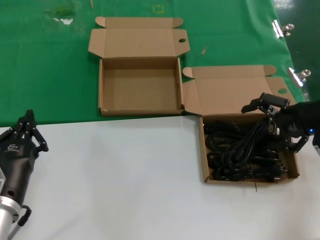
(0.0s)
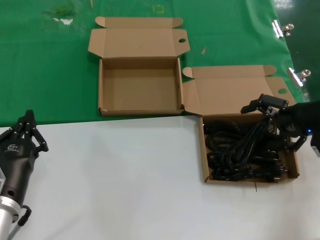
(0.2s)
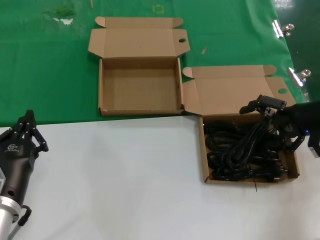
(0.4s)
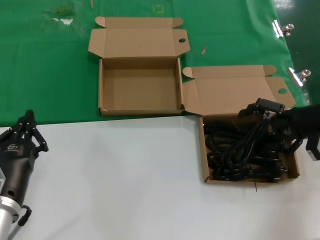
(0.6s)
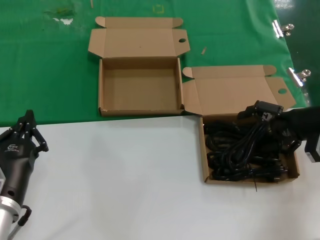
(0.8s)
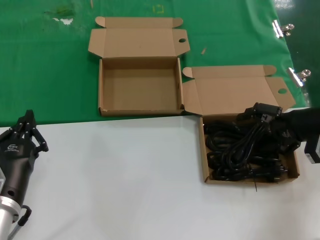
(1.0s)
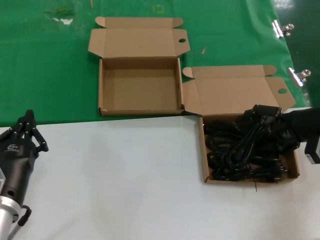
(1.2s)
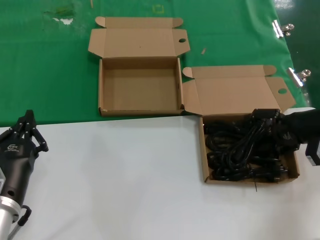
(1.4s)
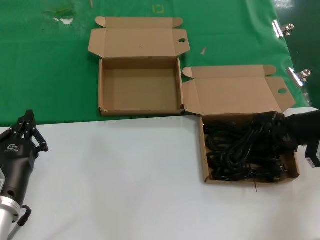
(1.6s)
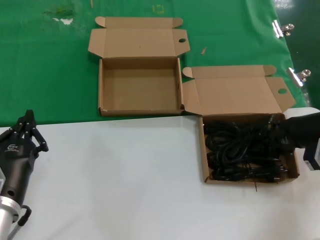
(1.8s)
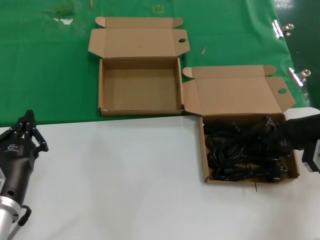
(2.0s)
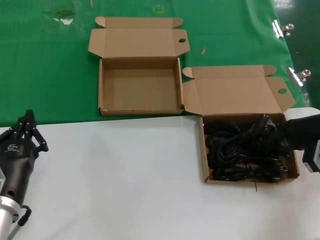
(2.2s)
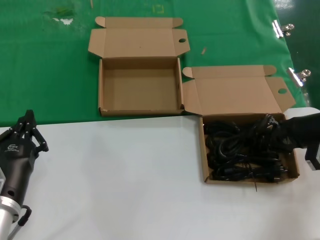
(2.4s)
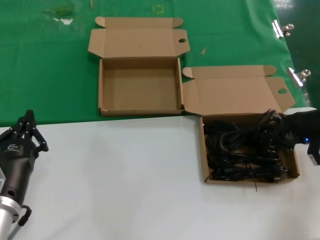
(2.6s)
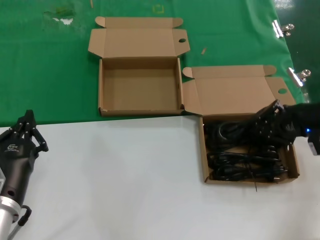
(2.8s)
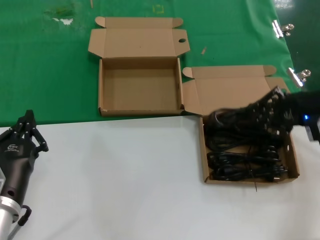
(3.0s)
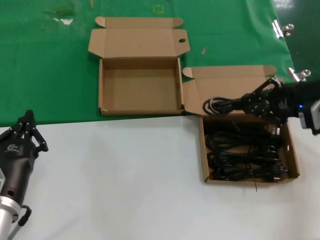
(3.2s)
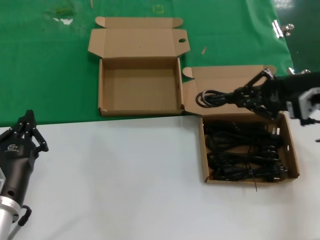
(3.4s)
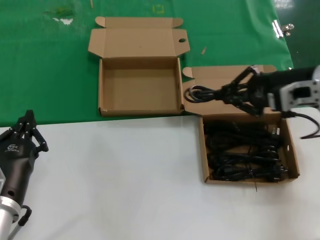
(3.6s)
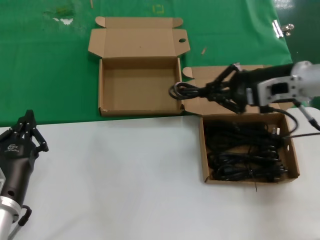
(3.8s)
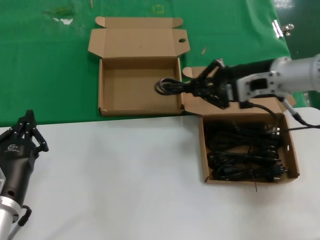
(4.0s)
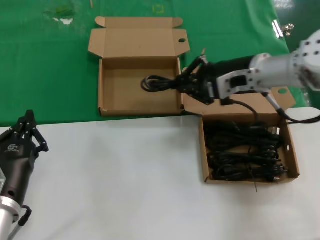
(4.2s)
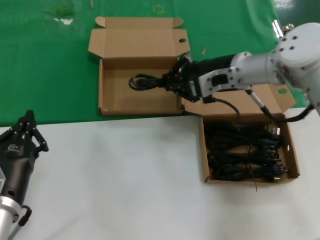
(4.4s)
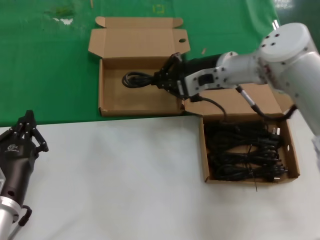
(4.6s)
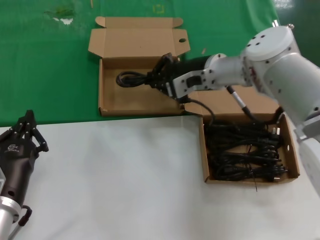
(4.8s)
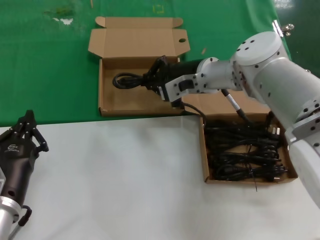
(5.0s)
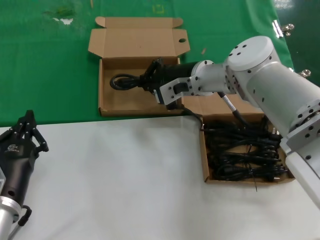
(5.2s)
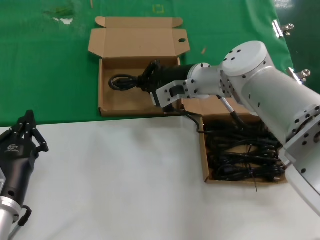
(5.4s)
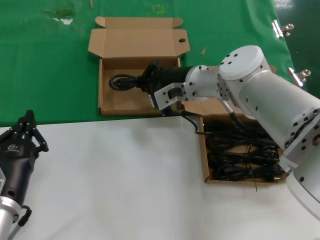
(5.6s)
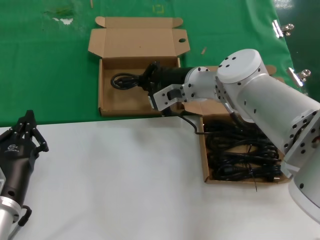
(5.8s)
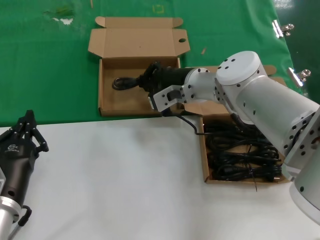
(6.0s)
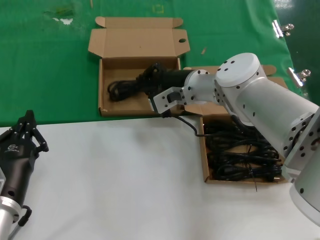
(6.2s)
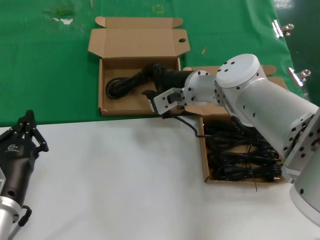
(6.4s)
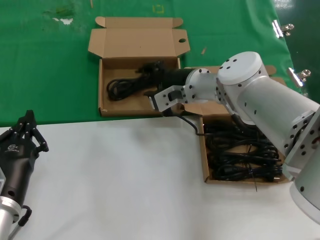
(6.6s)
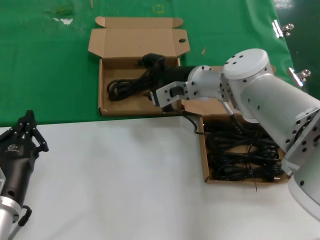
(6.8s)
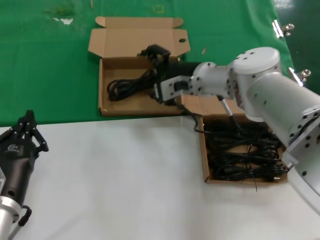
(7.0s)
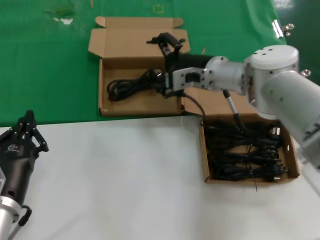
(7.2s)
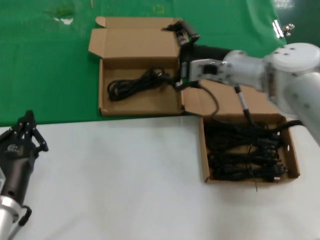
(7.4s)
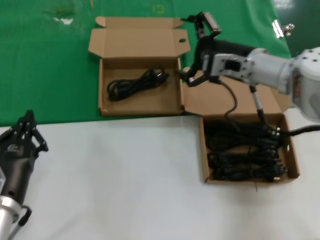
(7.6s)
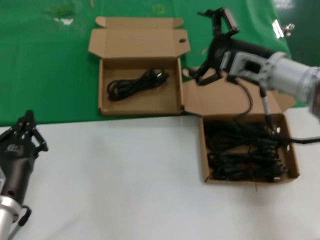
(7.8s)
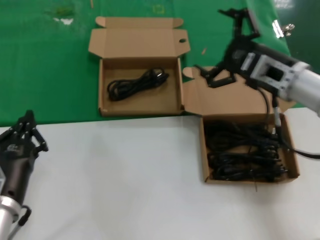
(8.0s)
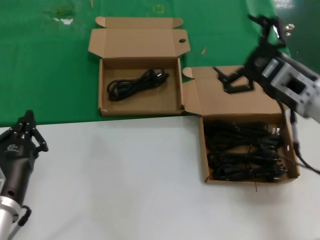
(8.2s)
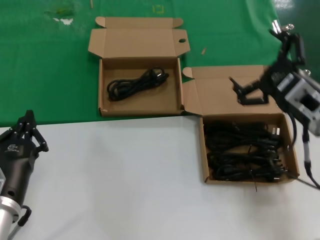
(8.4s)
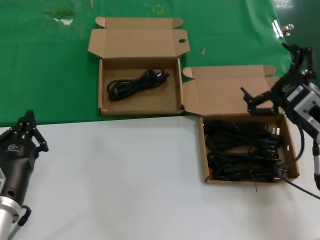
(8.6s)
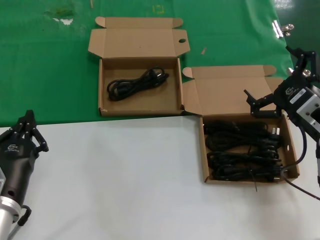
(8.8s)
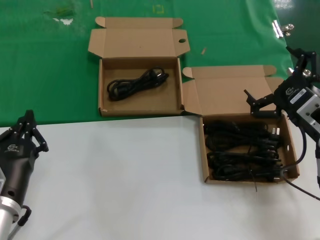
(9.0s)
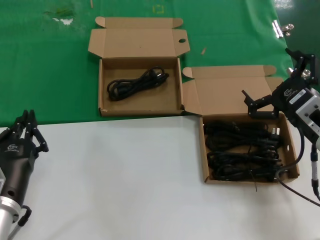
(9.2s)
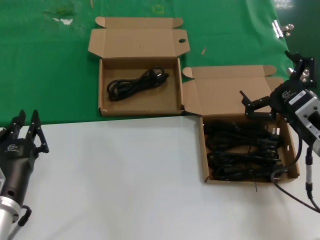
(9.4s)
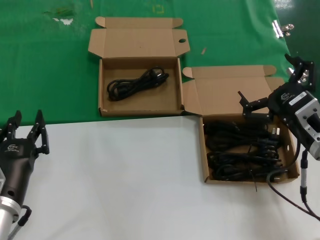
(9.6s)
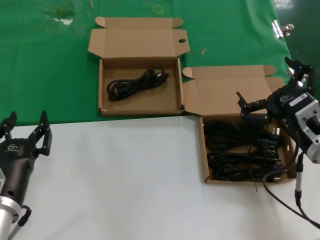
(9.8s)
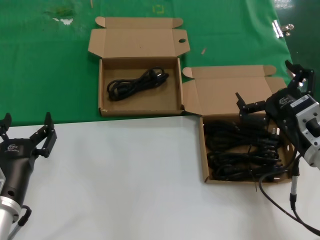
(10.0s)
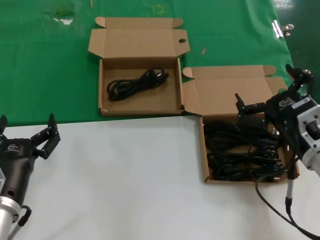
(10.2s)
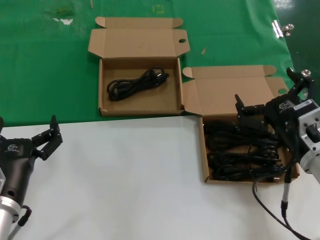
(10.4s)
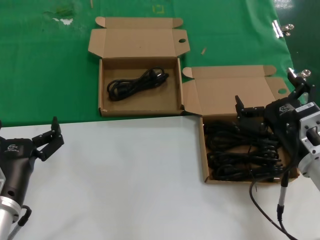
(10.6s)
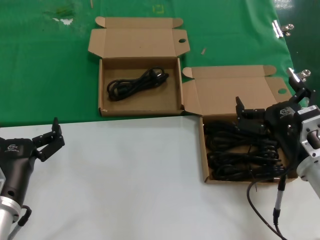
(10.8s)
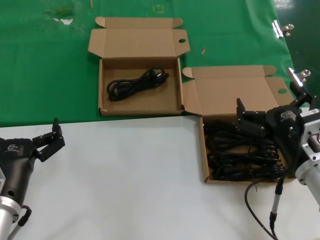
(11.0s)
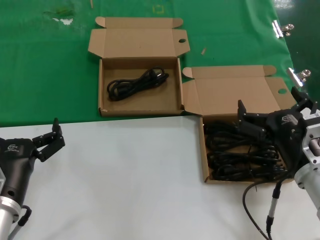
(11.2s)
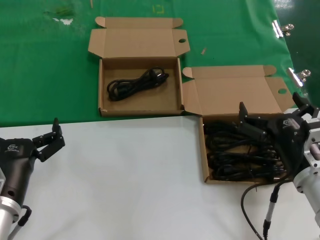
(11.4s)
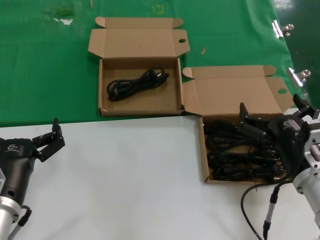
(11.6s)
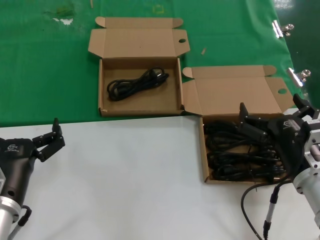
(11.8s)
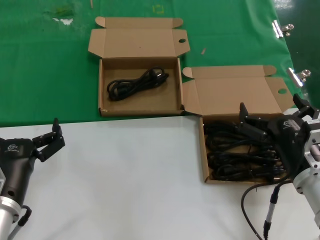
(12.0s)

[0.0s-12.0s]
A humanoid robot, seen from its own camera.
Task of the whole recording: take the parts from the box containing them and put them into an empty box.
Step, 0.0s to 2.2s: Grasp the data cable.
Step, 2.4s to 6.2s: Place the data cable in the another box.
0.0s to 1.6s: The hands move only a little.
1.6s to 3.0s: The right hand shifts by roughly 5 cm.
3.0s to 4.4s: The right hand goes approximately 20 cm to the left and forward.
4.4s to 6.0s: The right hand goes roughly 10 cm to the left and downward.
6.0s to 7.6s: The right hand moves to the right, roughly 10 cm.
7.6s to 9.0s: The right hand is displaced backward and to the right by approximately 20 cm.
9.0s to 10.4s: The right hand moves some 5 cm.

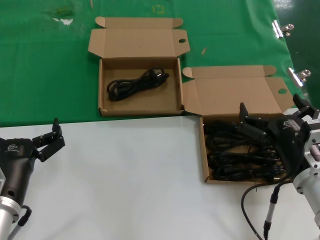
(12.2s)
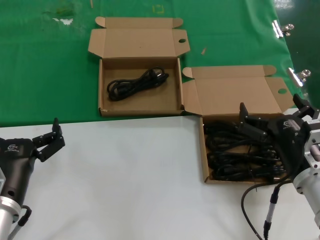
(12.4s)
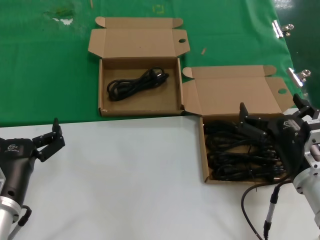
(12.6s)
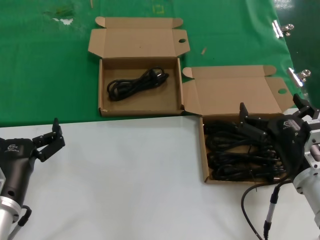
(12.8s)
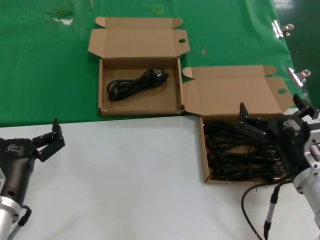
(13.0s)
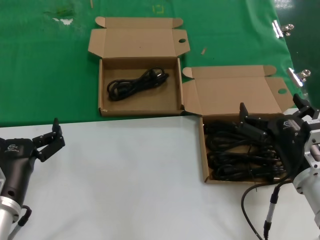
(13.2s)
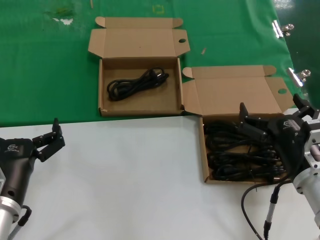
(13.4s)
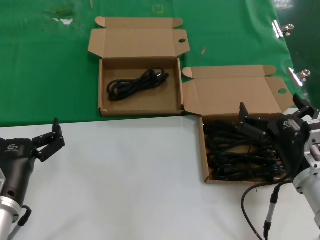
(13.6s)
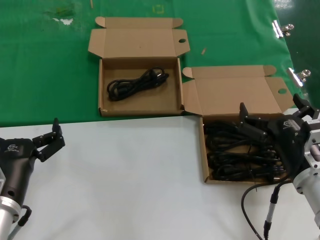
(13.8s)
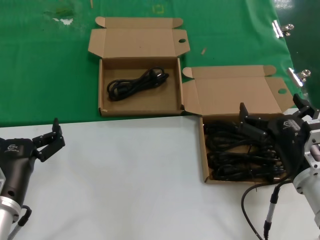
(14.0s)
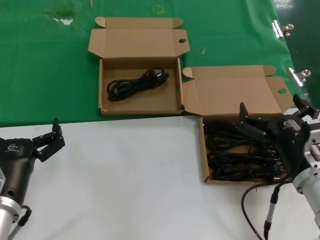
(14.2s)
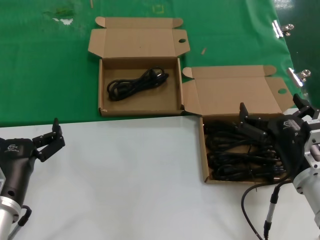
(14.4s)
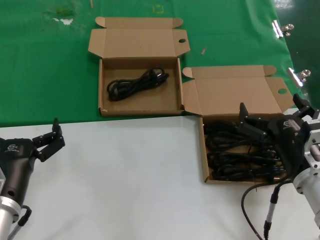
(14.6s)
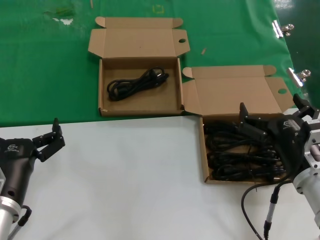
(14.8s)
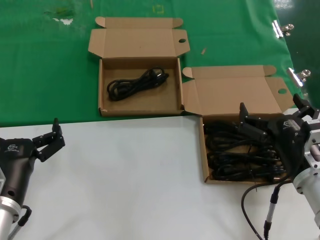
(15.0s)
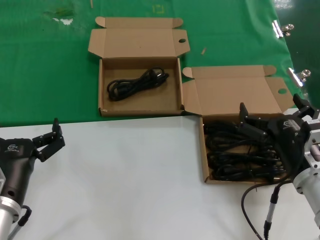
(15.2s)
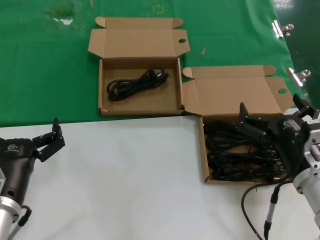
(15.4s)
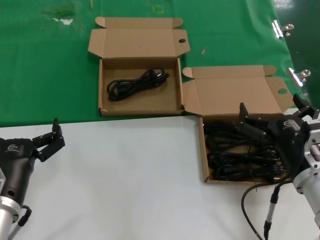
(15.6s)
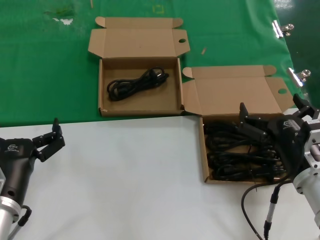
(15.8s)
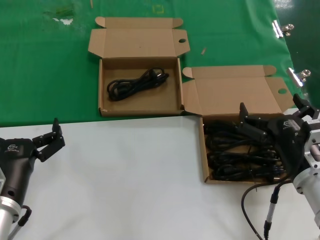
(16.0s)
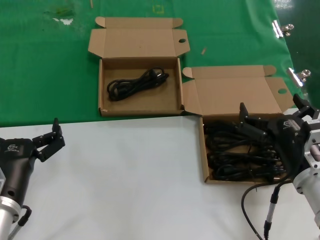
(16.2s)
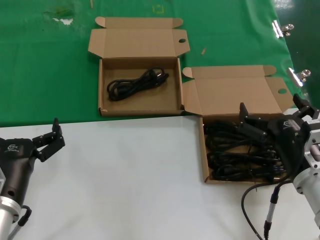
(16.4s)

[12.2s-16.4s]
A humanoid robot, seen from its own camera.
Task of the whole recording: take the parts from the box containing them and put them into an empty box.
12.2s to 16.4s: Neither hand changes place.
